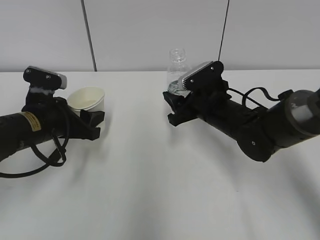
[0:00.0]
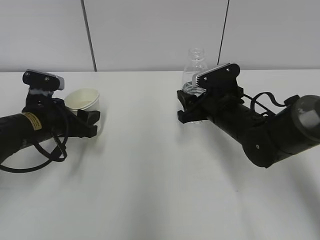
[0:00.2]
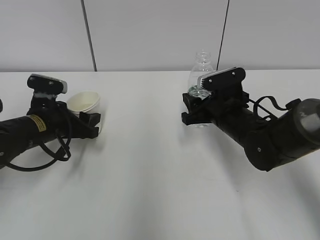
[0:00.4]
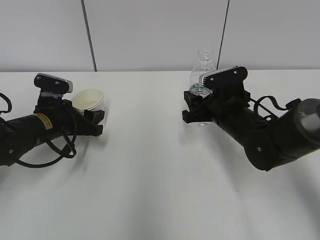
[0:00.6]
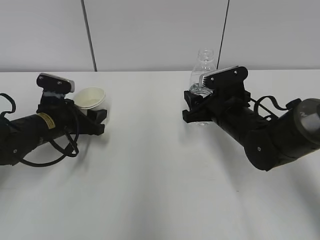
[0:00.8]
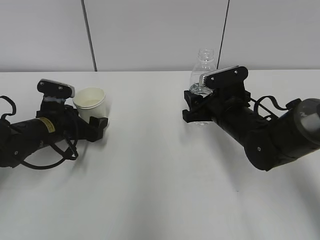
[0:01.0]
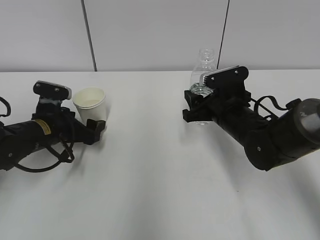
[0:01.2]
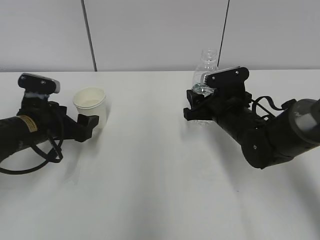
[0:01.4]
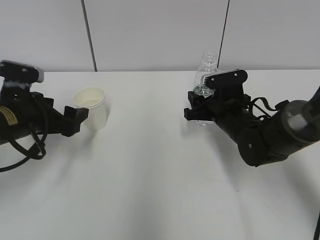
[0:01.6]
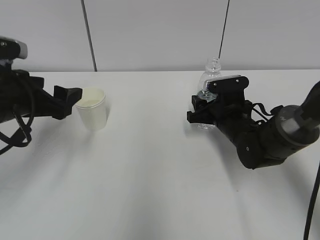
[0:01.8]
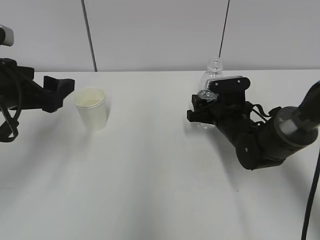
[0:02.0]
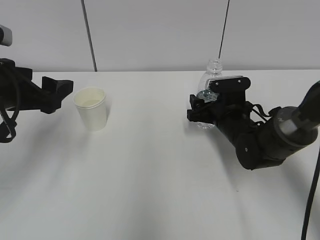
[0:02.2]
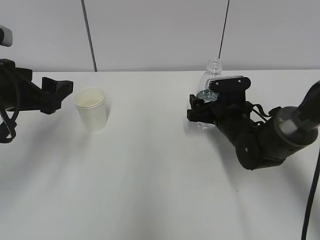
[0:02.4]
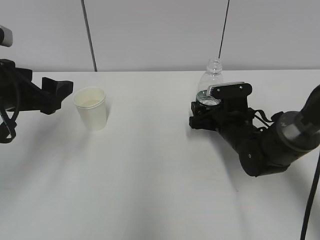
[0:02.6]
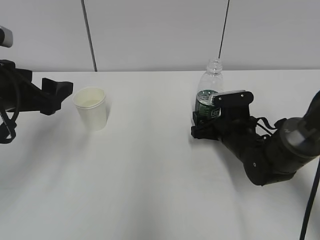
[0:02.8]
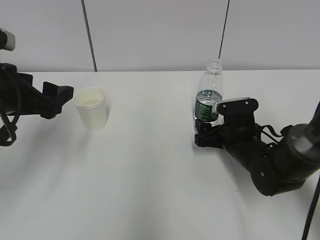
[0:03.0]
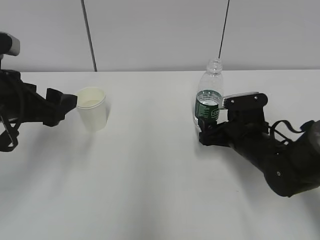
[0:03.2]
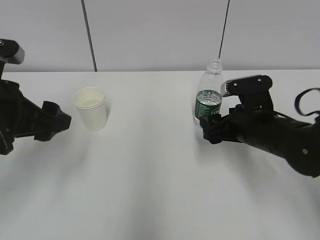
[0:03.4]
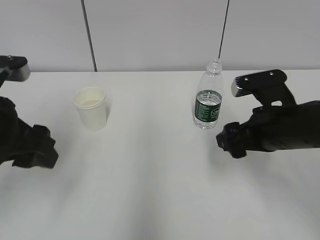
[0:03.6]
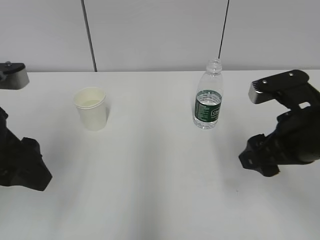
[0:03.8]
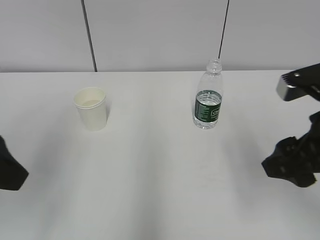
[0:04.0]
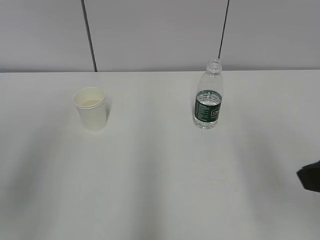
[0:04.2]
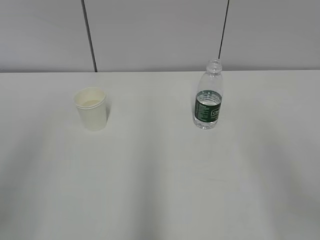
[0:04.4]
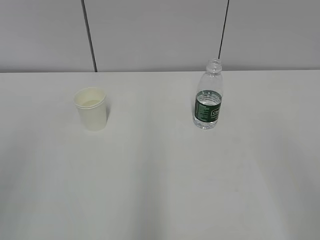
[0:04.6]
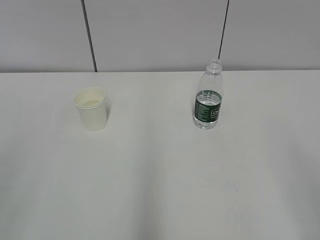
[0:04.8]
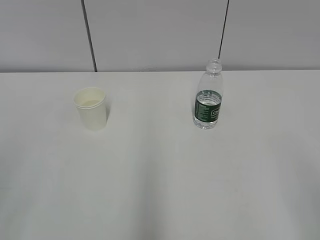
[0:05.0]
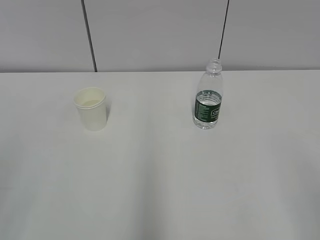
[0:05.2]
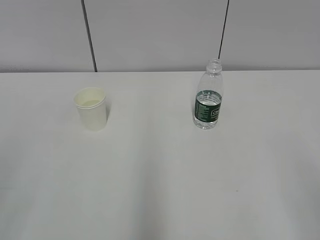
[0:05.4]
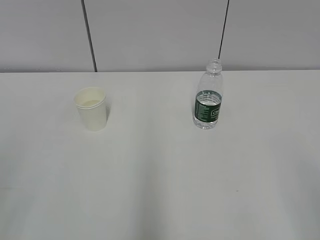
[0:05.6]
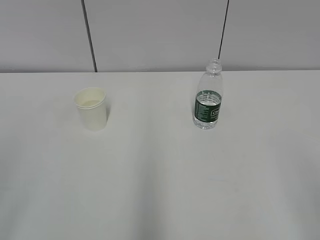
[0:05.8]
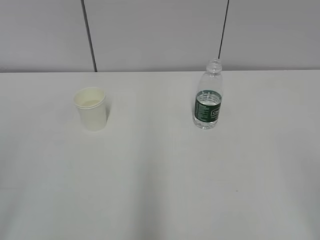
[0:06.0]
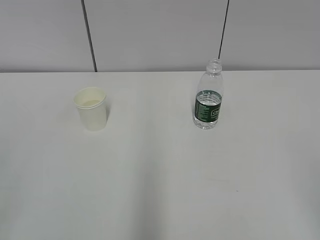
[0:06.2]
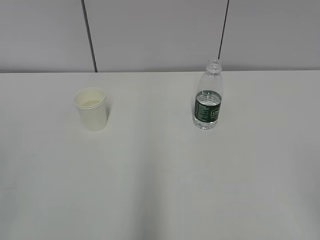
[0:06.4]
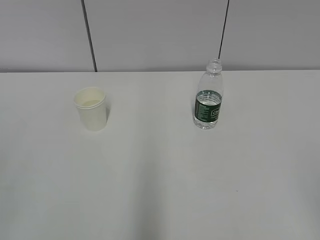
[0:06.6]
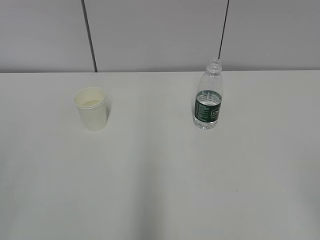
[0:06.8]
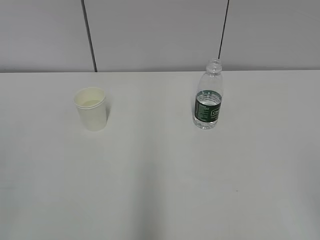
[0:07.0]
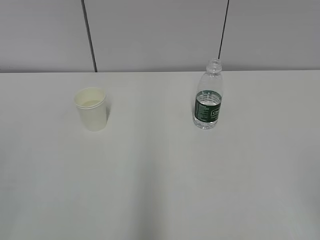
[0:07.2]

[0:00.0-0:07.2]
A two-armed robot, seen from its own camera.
0:00.0 to 0:01.4: The left gripper opens.
0:01.4 to 0:02.8: The right gripper moves downward, about 5 cm, and opens its fingers; the left gripper is displaced upward and backward by about 15 cm.
0:02.8 to 0:04.4: The right gripper travels backward and upward by about 35 cm, while the left gripper goes roughly 20 cm backward and upward, and closes.

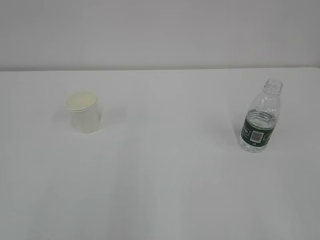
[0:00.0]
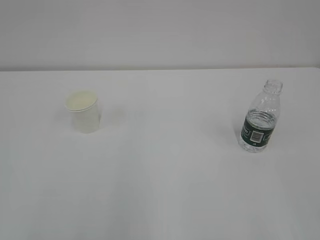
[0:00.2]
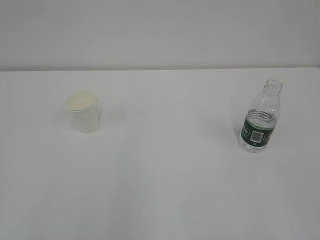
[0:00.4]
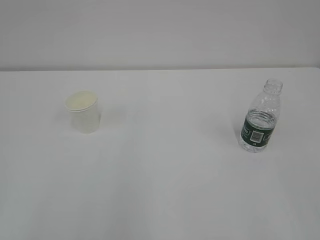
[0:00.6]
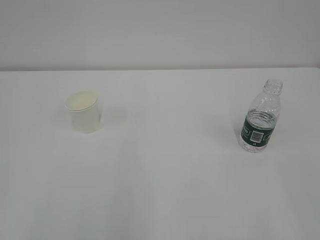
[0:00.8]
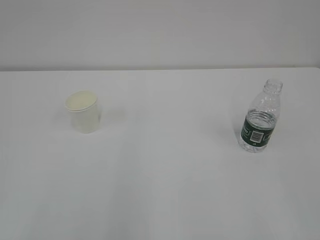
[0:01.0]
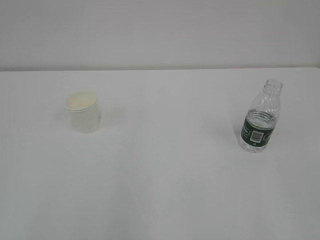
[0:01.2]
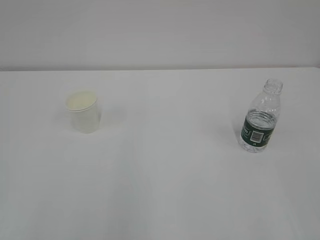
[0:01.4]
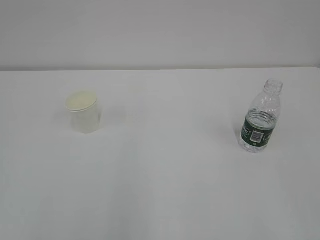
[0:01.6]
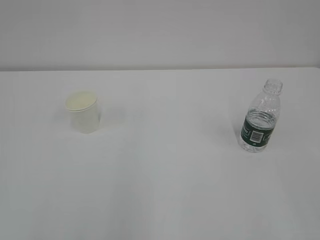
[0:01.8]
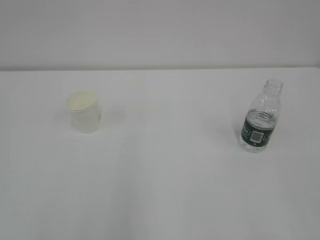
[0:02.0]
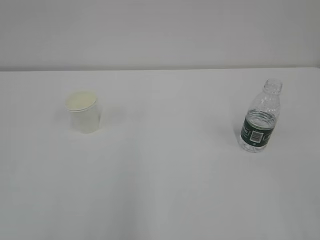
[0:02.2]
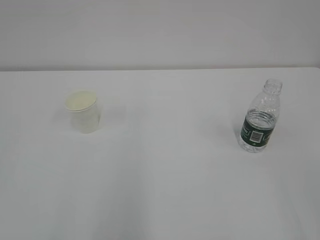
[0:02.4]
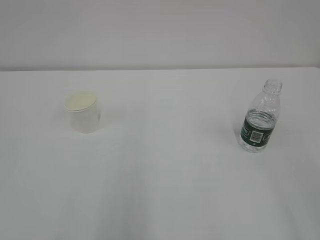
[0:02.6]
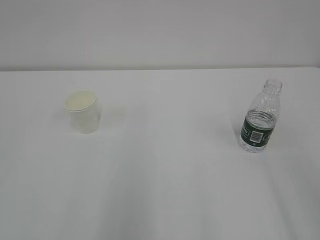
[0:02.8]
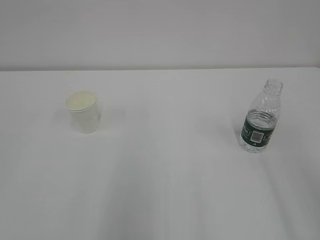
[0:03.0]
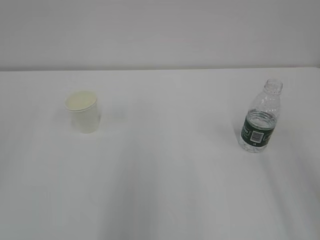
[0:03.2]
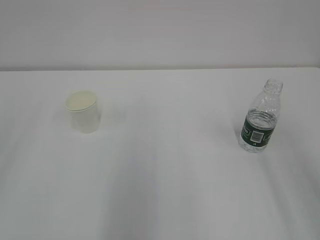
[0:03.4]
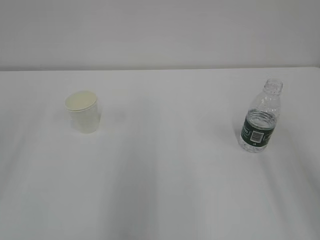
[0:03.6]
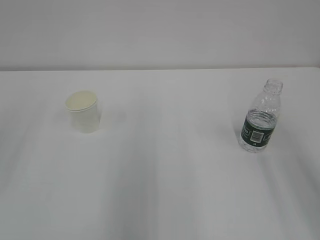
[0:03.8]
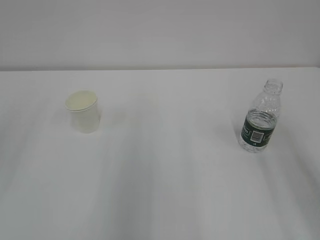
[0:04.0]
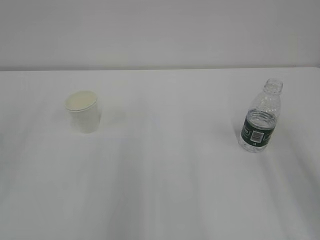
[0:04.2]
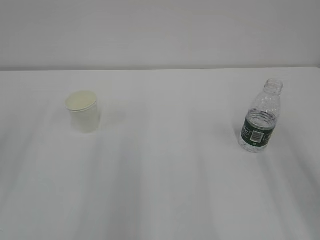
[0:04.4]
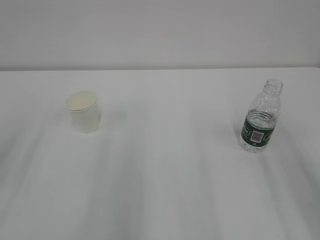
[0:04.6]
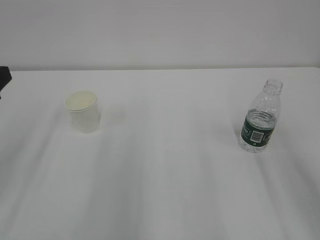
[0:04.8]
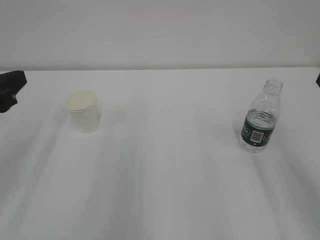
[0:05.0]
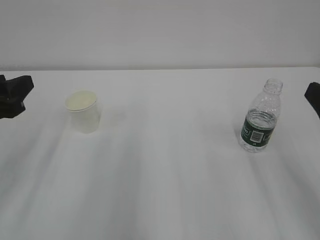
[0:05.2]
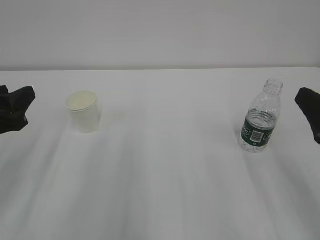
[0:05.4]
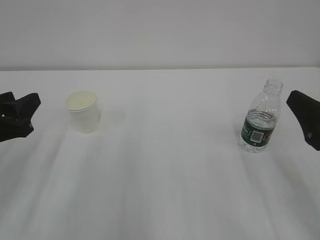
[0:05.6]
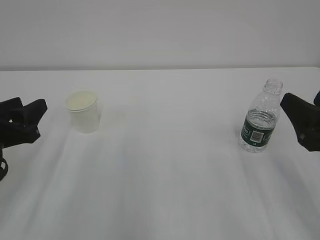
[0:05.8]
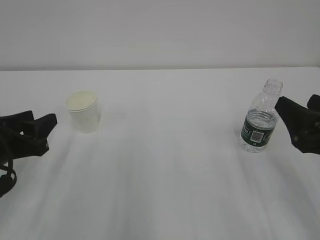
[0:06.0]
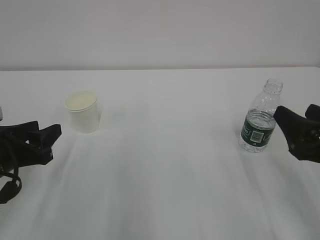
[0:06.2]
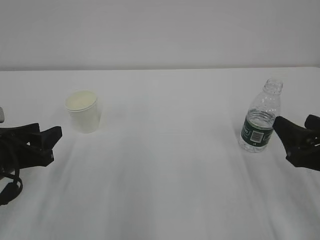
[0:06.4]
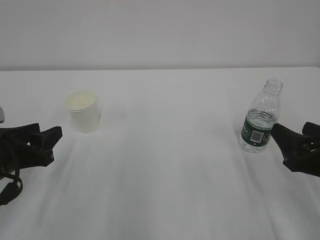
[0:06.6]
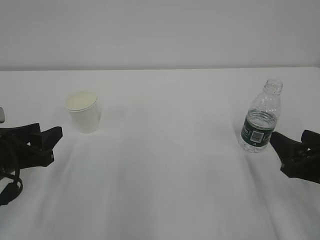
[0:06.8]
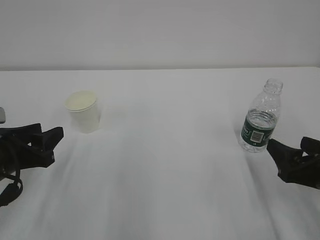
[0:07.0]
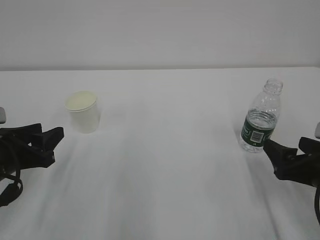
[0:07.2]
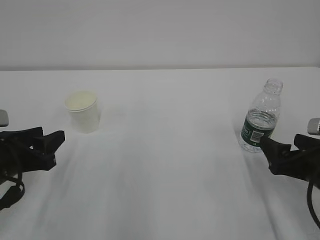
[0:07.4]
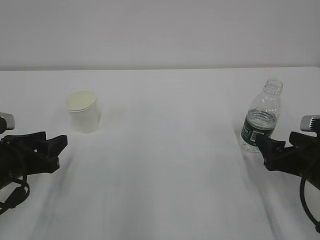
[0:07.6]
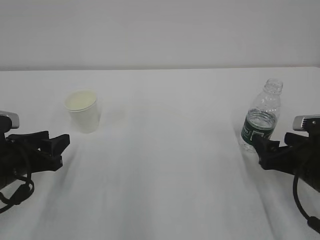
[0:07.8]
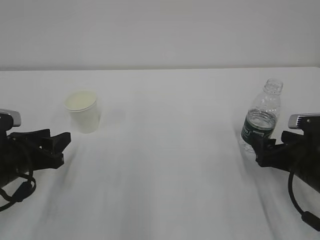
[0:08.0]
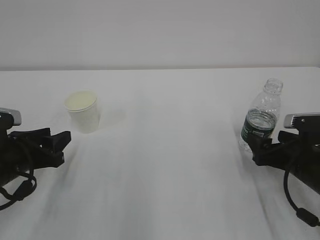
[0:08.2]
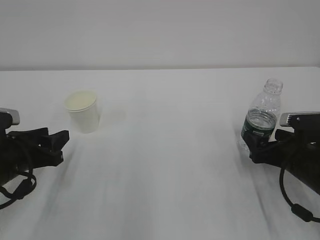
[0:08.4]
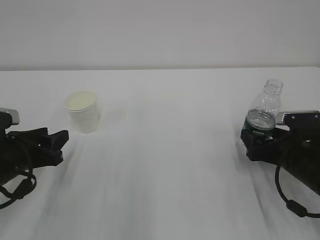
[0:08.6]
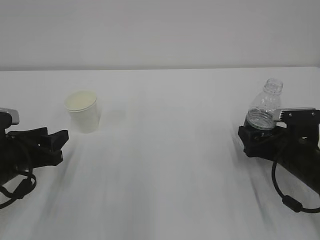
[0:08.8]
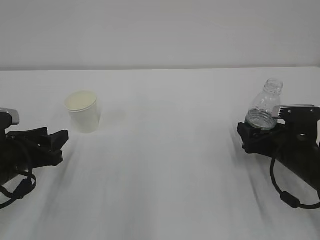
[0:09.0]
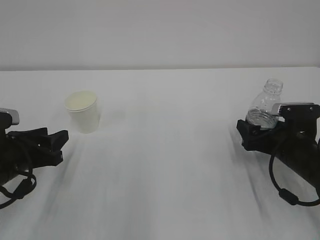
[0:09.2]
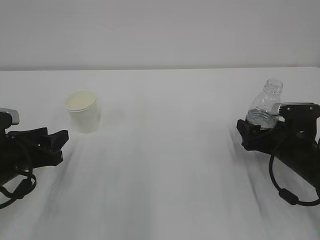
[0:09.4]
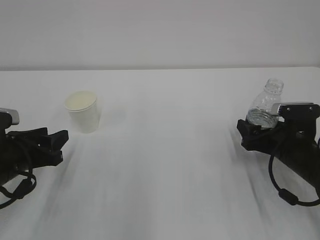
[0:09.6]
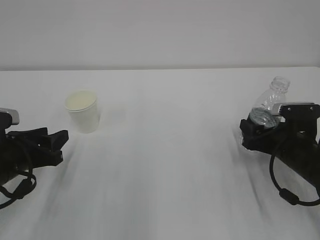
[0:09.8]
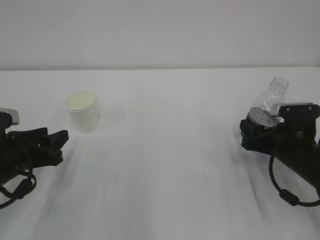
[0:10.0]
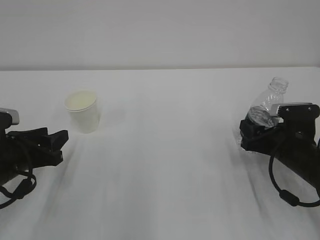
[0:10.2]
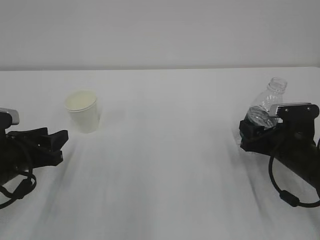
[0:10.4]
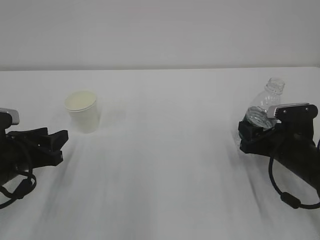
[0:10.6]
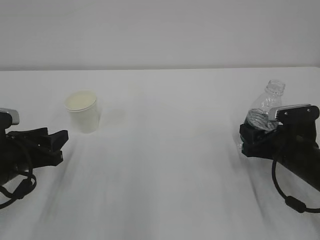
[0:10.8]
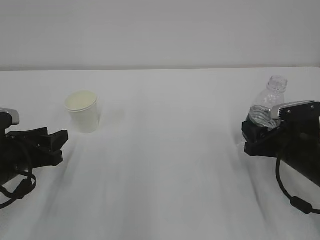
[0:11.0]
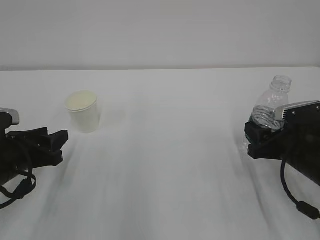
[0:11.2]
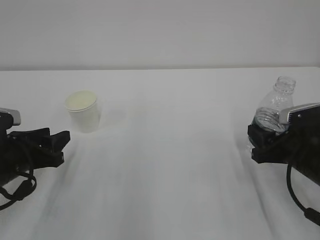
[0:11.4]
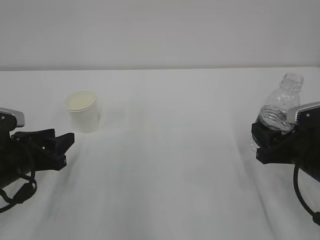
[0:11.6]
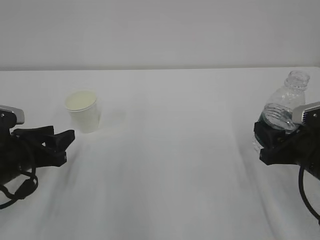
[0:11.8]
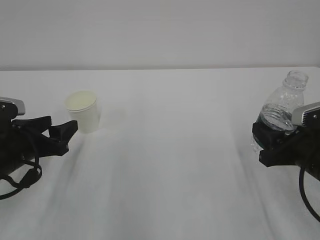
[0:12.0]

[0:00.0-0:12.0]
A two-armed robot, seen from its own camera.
0:04.4 to 0:06.0: The grippers both shift downward by some 10 cm.
0:06.0 to 0:07.6: The right gripper shifts approximately 10 cm downward, and opens up.
0:07.6 to 0:09.0: The right gripper goes roughly 5 cm forward.
0:09.0 to 0:10.4: The right gripper closes up.
0:10.4 to 0:12.0: The left gripper opens up, while the right gripper is displaced backward and upward by some 10 cm.

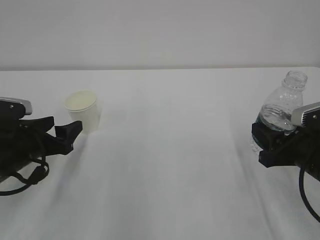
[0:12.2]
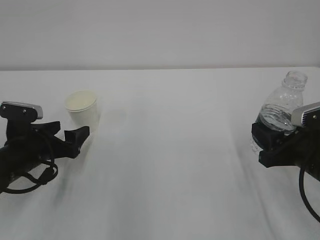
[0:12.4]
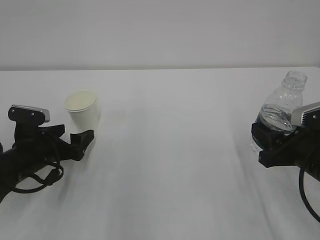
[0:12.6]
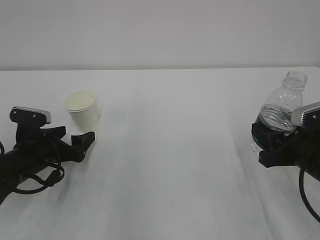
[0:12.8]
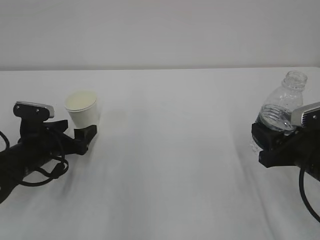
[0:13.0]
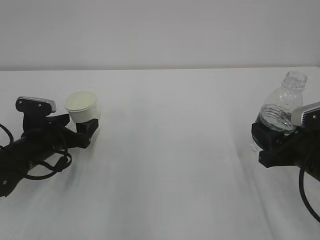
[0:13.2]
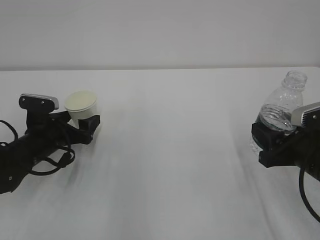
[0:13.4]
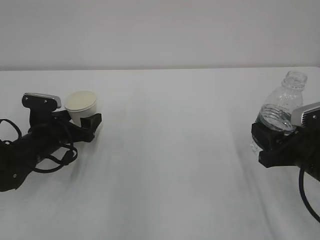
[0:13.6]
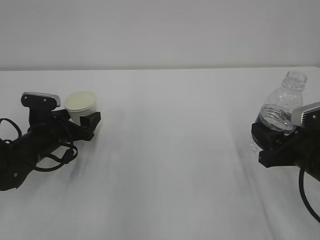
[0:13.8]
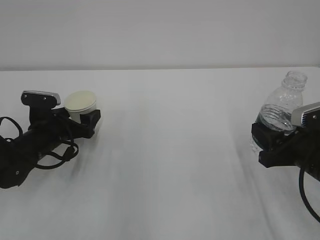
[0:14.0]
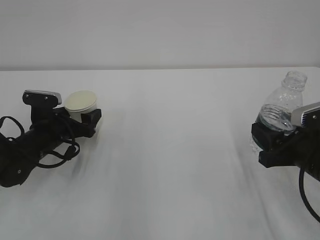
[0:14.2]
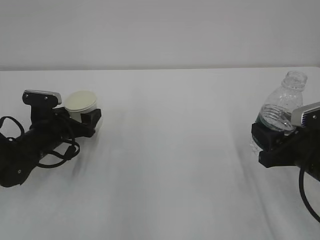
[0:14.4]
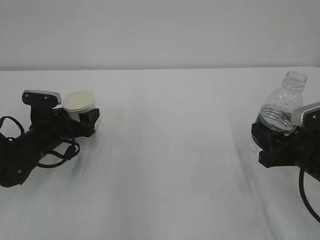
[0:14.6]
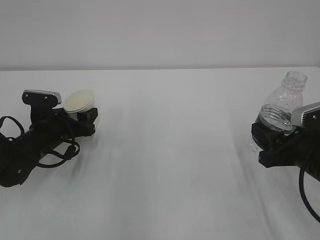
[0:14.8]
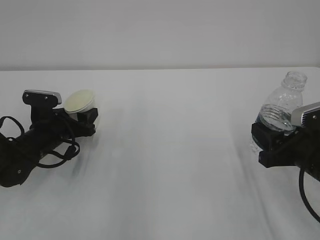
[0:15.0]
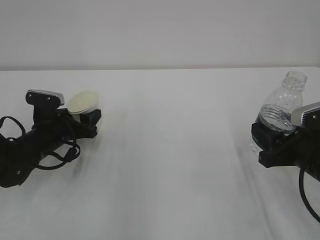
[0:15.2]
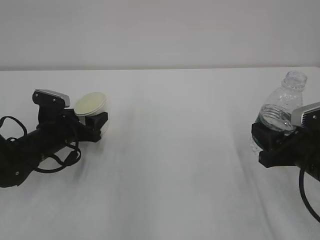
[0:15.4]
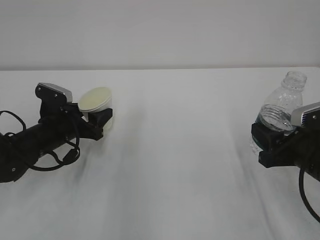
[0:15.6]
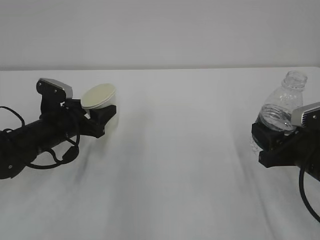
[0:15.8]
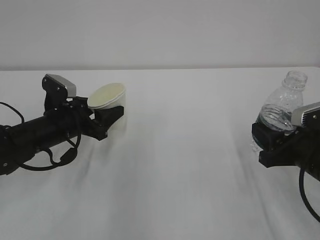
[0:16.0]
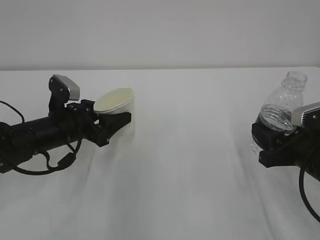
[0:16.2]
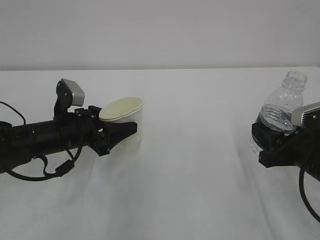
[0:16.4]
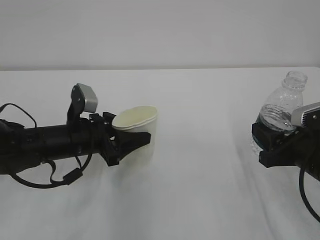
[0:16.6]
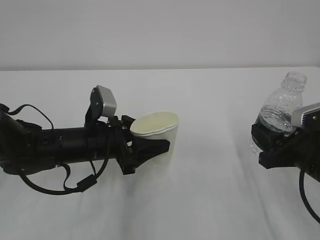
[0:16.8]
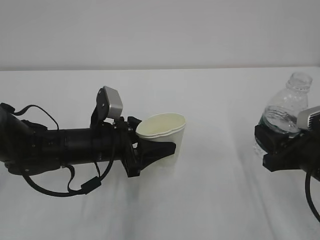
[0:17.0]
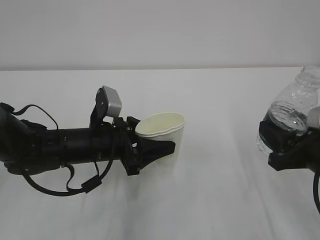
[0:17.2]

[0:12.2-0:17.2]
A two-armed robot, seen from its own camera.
0:12.2 to 0:13.8: The left gripper travels forward by about 5 cm, and opens up.
0:13.8 to 0:15.6: The left gripper closes.
0:15.6 to 0:17.2: The left gripper goes roughly 10 cm to the right and backward.
